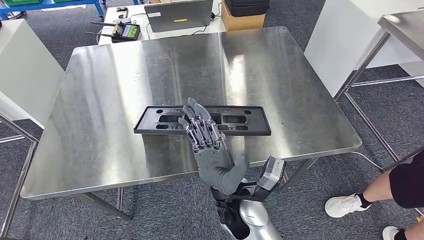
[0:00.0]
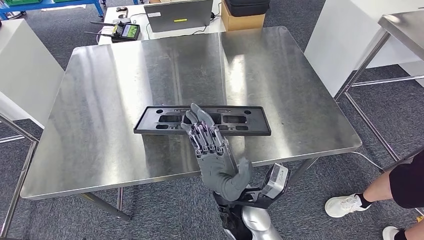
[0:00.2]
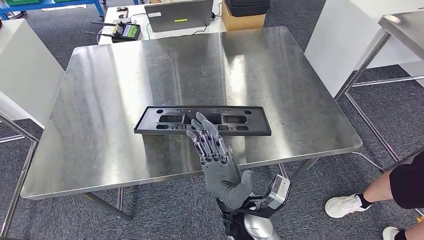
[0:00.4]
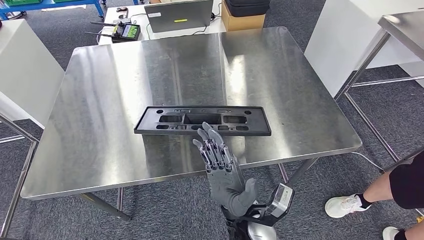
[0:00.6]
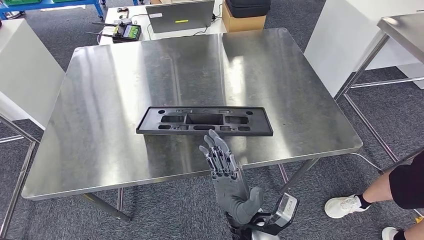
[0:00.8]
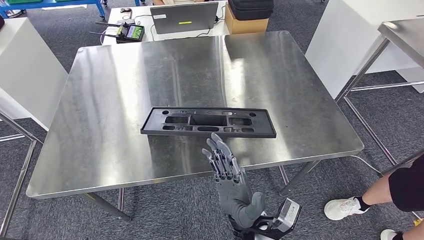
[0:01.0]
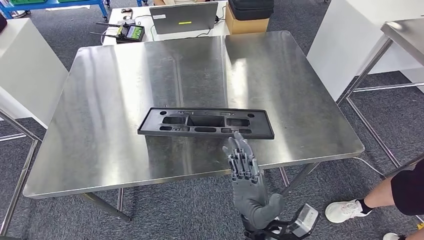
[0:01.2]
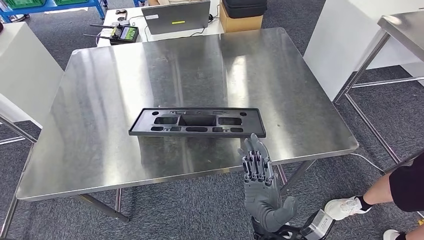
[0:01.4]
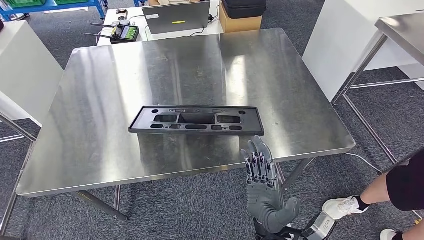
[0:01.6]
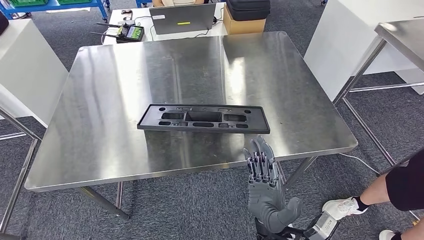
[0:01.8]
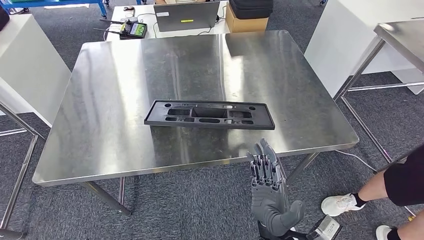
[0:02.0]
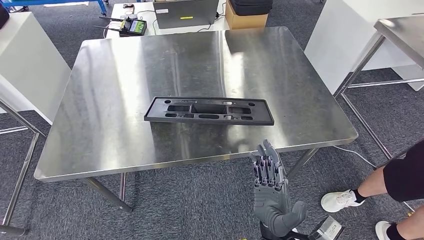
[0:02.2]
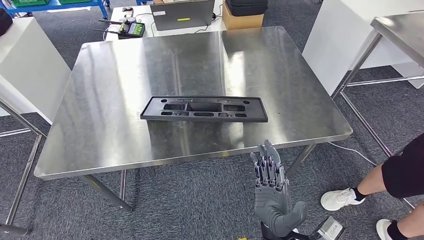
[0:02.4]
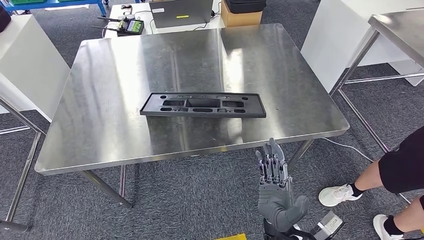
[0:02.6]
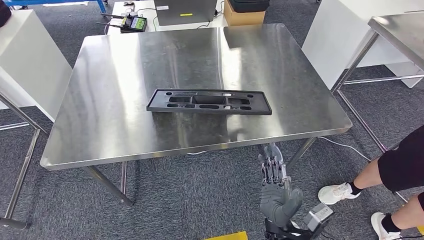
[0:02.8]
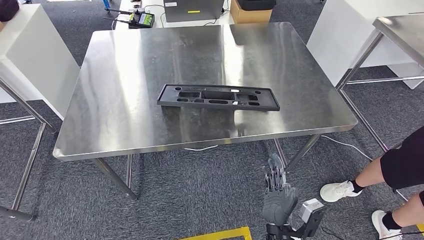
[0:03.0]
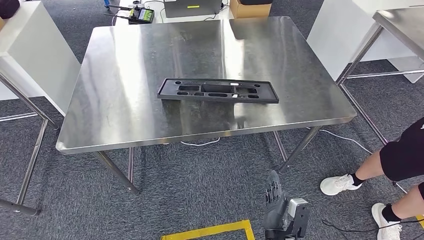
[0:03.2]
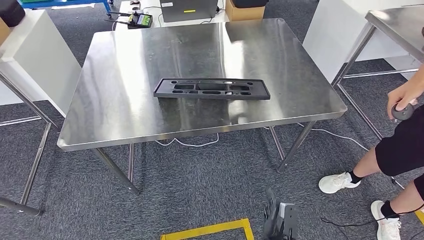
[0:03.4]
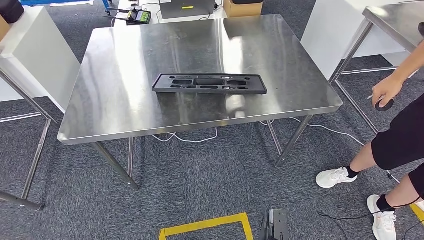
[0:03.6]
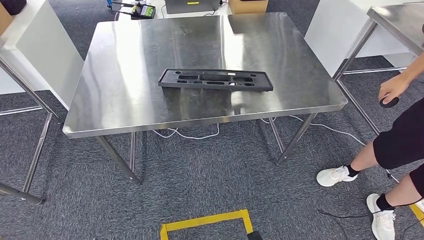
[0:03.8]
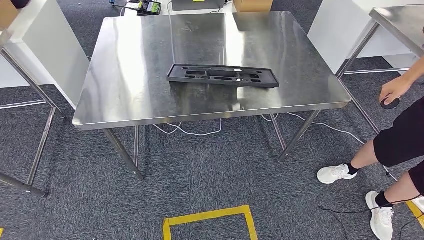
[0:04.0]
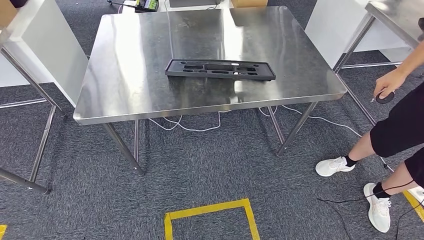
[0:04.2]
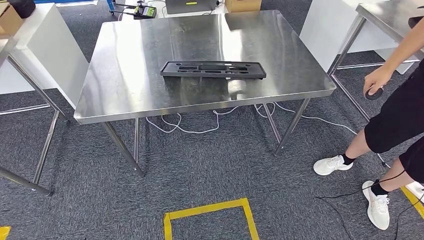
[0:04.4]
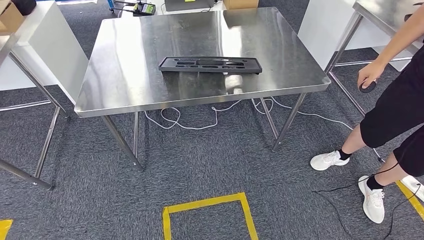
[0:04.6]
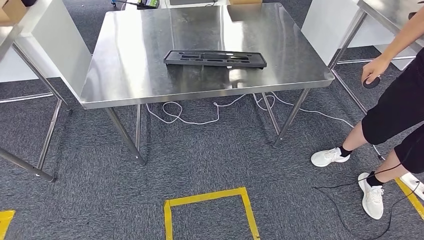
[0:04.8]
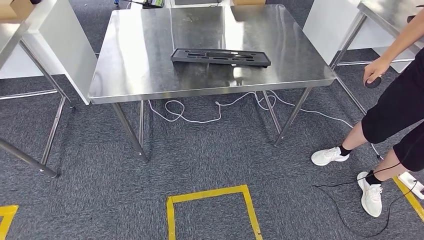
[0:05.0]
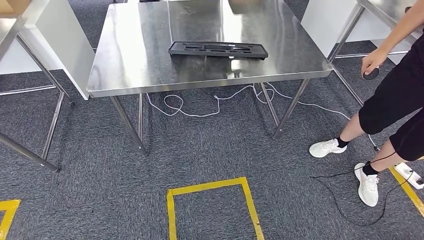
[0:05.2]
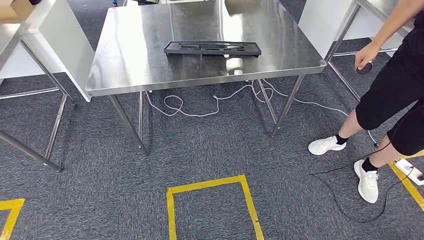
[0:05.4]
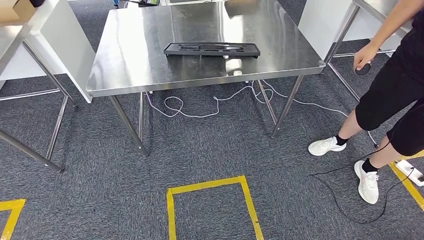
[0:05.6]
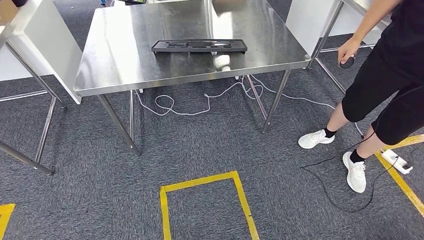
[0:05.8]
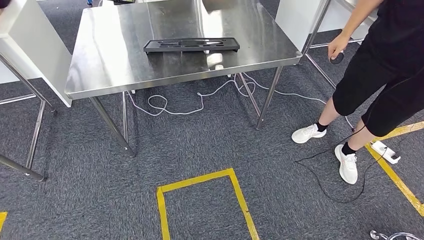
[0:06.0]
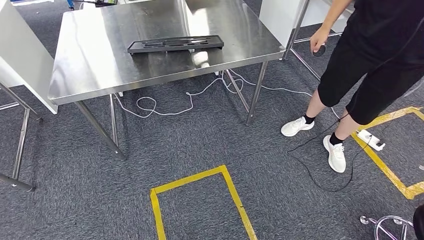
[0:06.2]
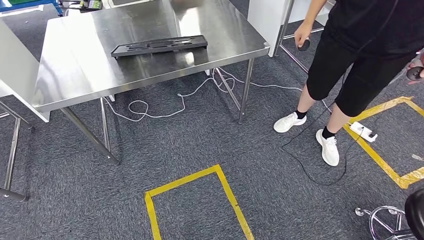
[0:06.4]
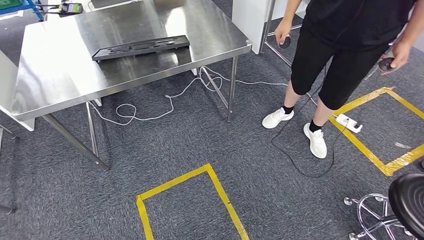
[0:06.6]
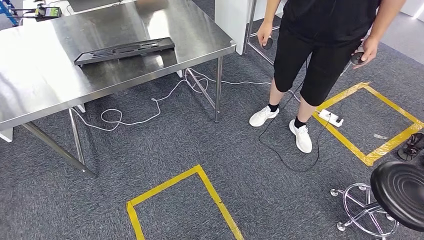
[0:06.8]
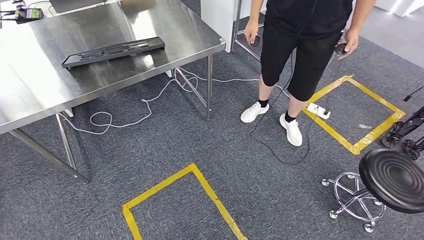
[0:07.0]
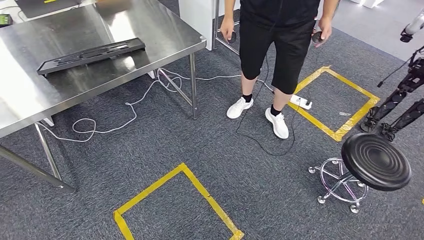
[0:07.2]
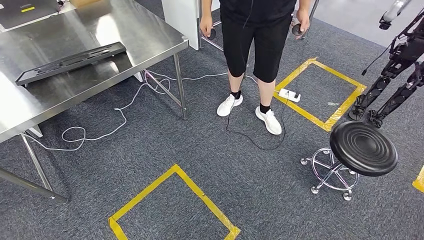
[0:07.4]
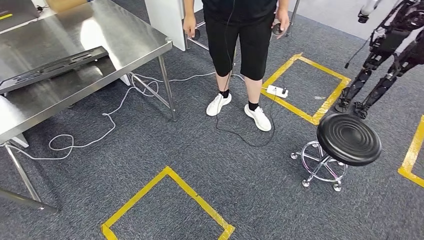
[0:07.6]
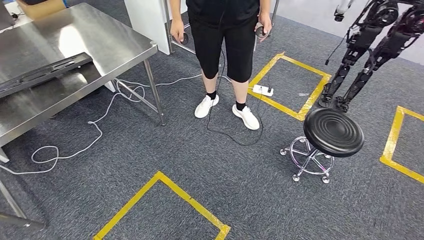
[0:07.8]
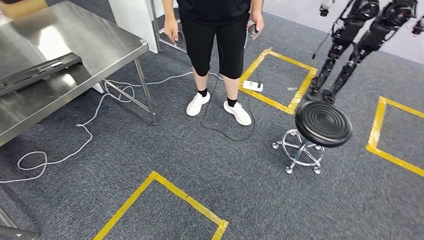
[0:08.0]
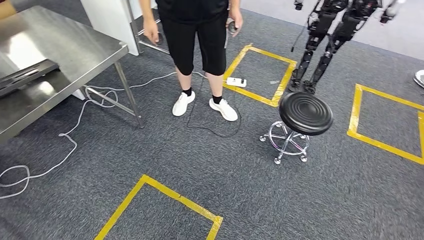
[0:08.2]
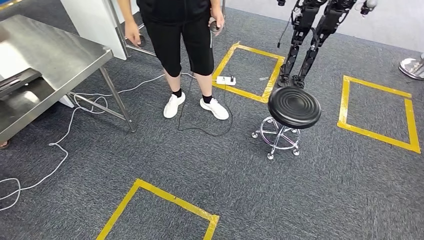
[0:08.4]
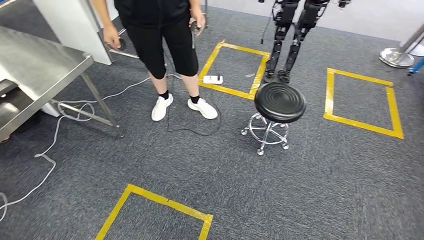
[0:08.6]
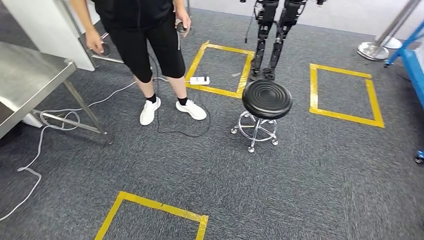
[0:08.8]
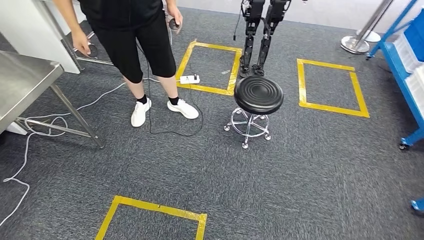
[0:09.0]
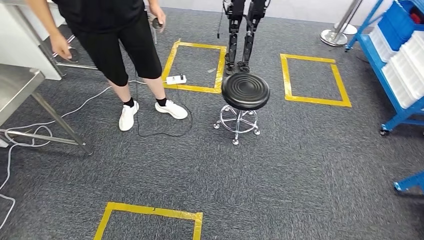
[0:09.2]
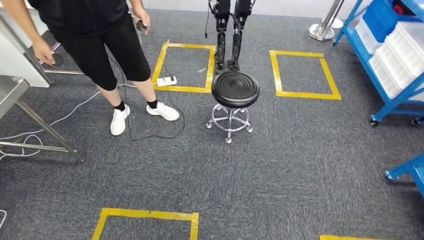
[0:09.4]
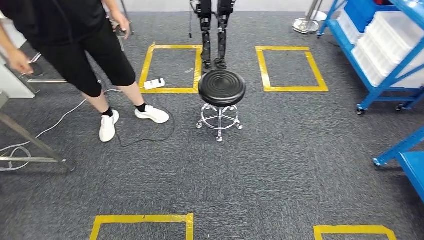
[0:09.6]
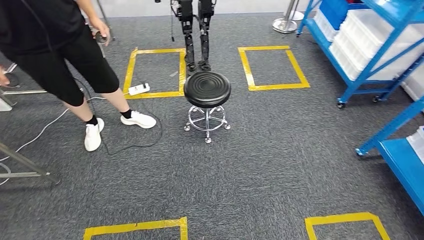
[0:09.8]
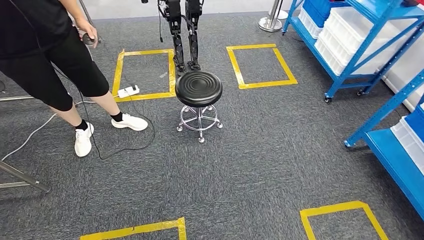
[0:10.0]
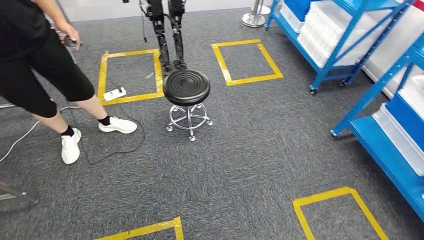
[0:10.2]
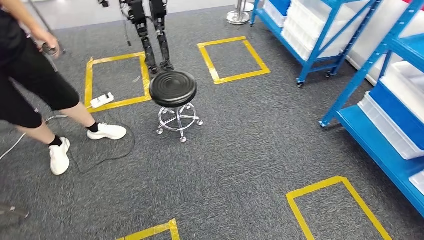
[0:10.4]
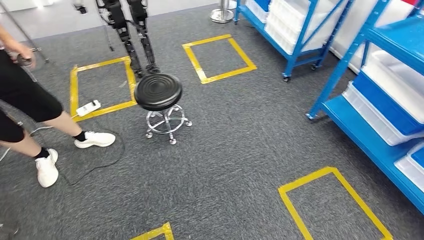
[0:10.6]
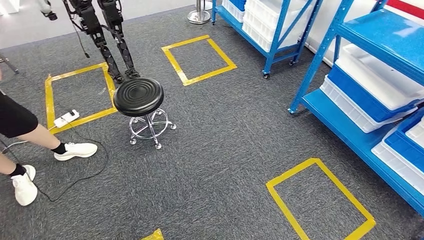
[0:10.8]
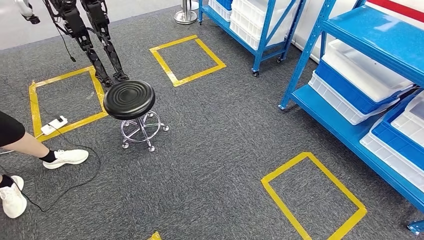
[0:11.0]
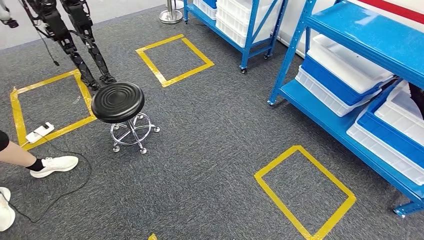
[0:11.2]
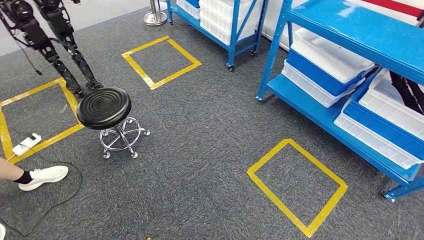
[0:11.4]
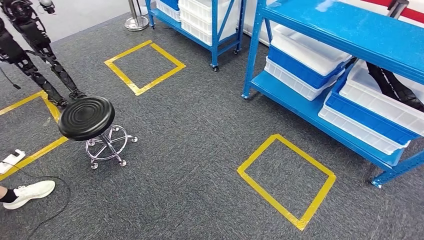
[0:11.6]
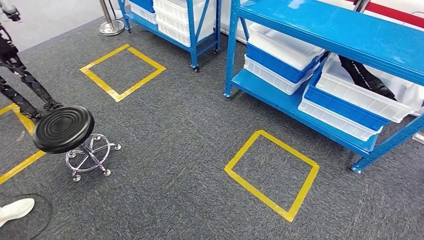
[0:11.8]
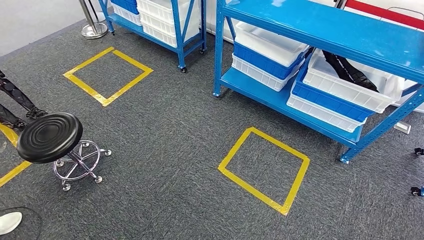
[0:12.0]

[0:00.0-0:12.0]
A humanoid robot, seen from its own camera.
Step, 0:00.0 to 0:05.0: Insert the large material into the corresponding slot on the workbench.
0:00.0 to 0:01.6: The right hand is displaced to the right, downward and backward by roughly 15 cm.

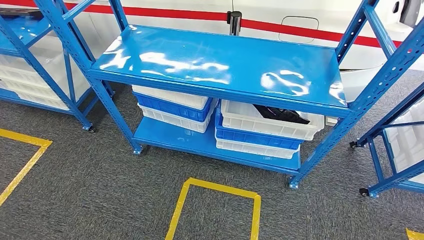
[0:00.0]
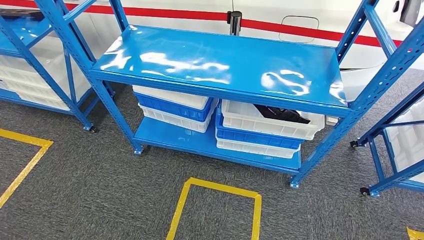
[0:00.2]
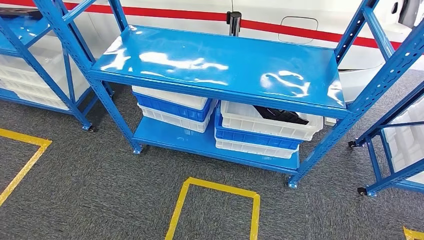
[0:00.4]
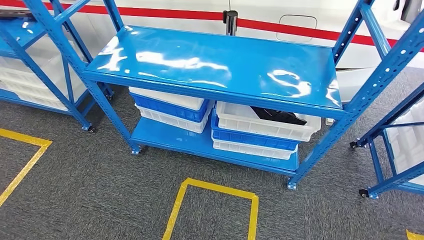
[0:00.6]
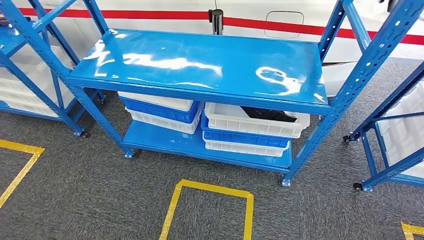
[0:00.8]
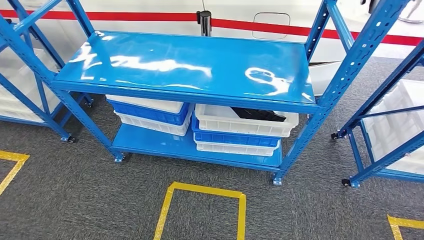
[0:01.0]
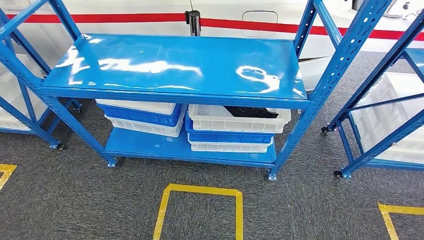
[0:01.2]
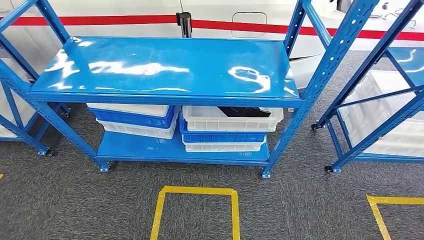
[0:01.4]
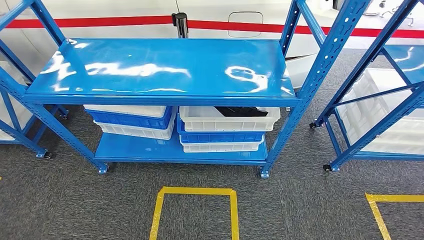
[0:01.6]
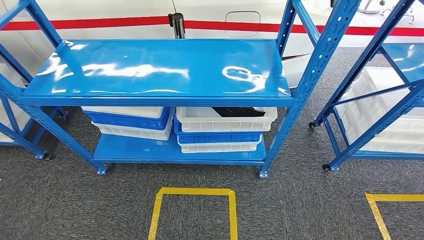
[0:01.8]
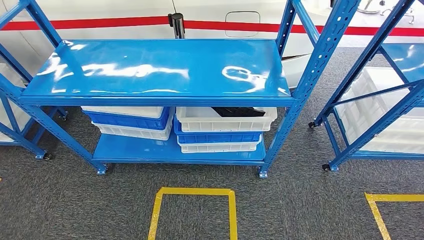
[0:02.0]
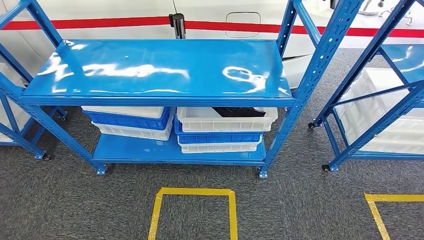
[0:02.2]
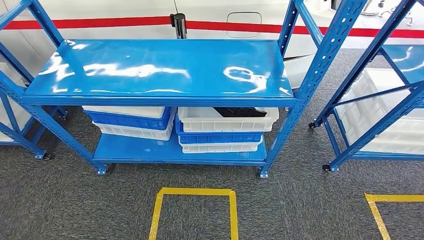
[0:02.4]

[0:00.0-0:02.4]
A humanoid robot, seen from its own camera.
Step, 0:00.0 to 0:02.4: Move to the initial position of the shelf.
